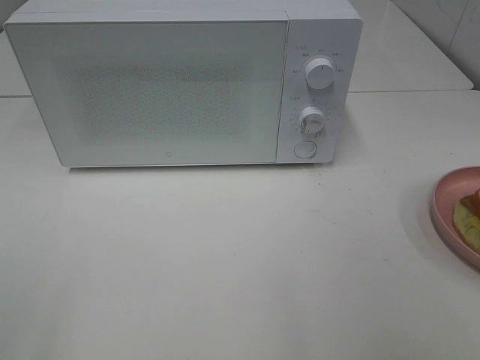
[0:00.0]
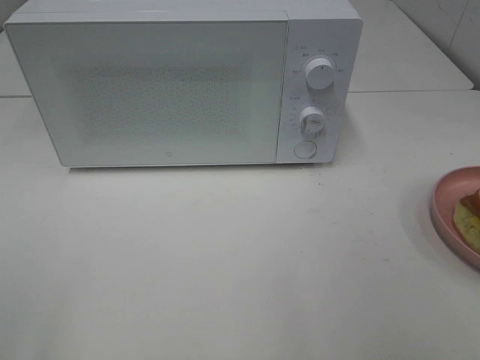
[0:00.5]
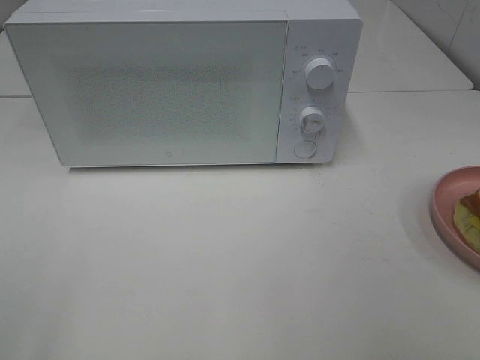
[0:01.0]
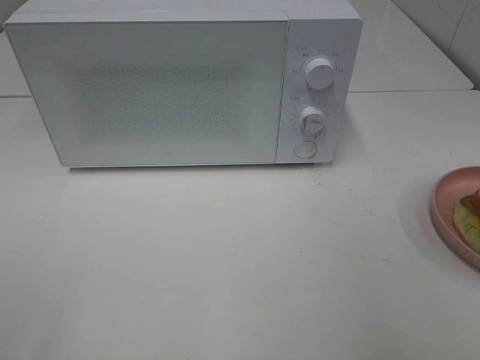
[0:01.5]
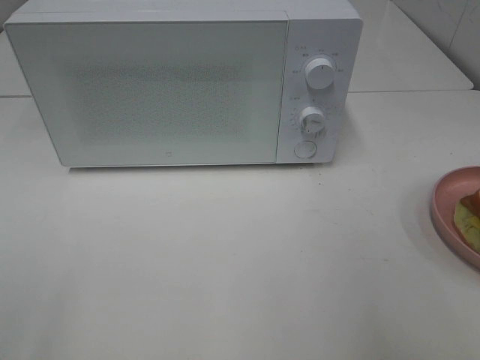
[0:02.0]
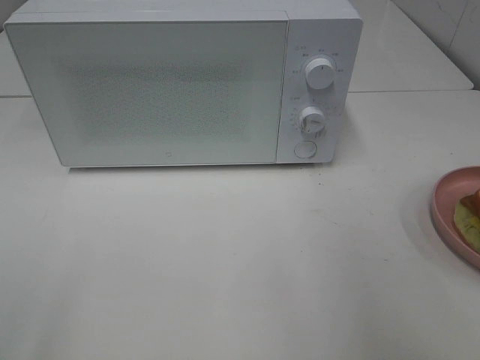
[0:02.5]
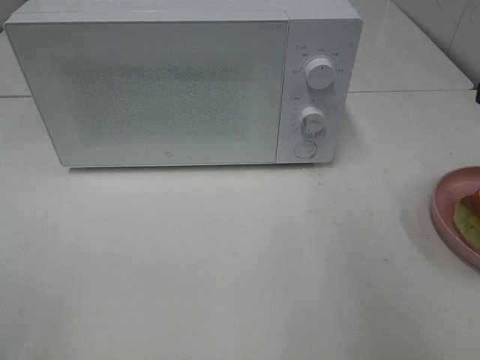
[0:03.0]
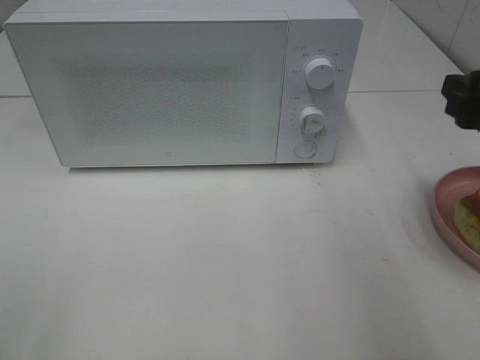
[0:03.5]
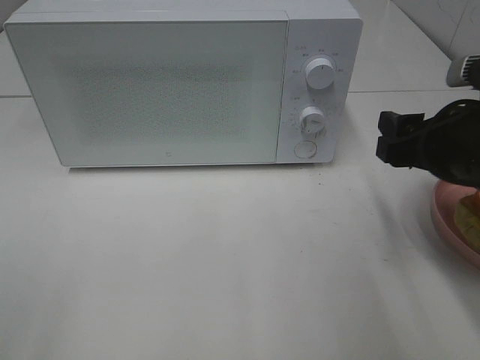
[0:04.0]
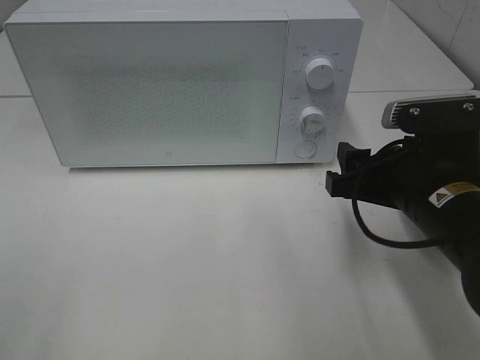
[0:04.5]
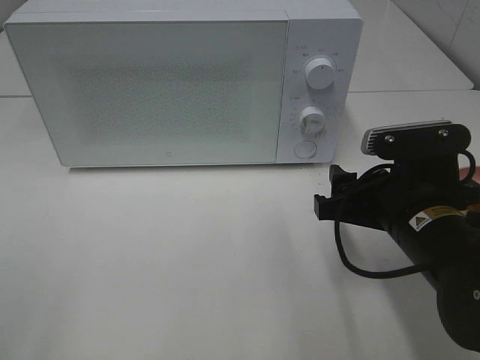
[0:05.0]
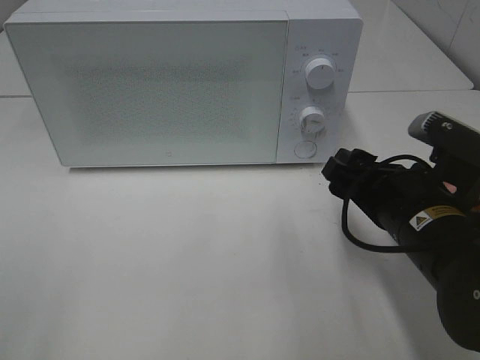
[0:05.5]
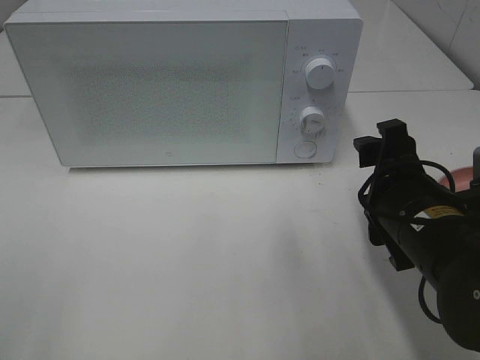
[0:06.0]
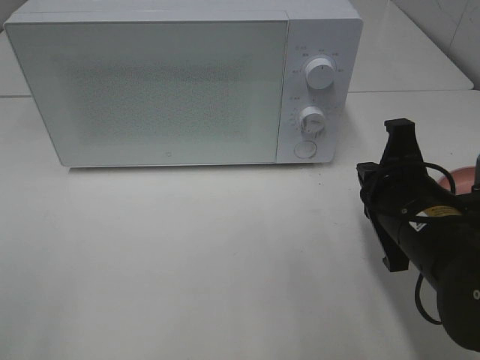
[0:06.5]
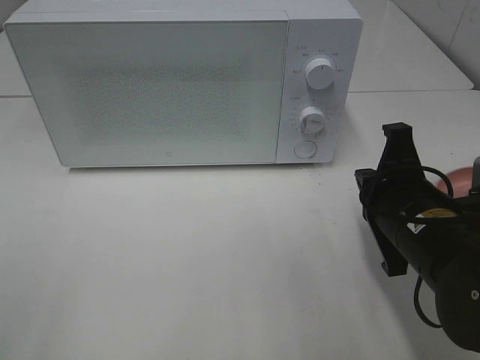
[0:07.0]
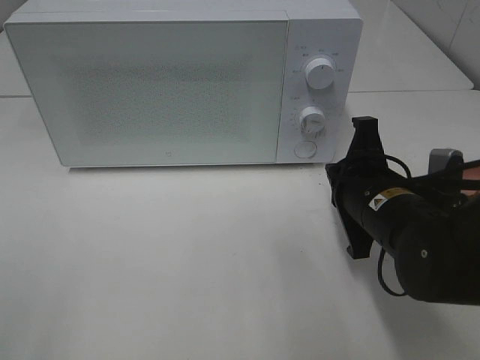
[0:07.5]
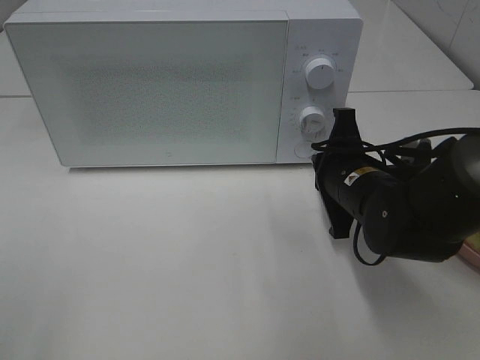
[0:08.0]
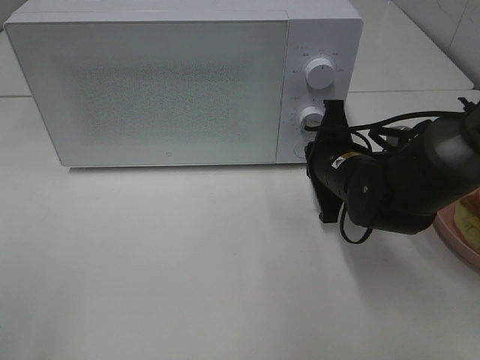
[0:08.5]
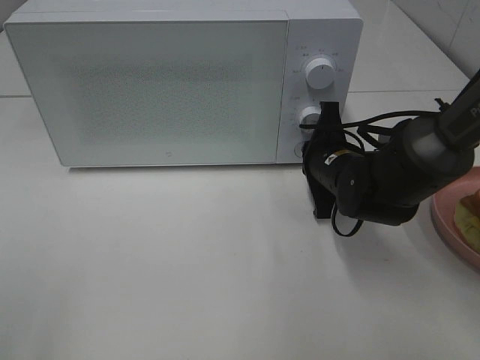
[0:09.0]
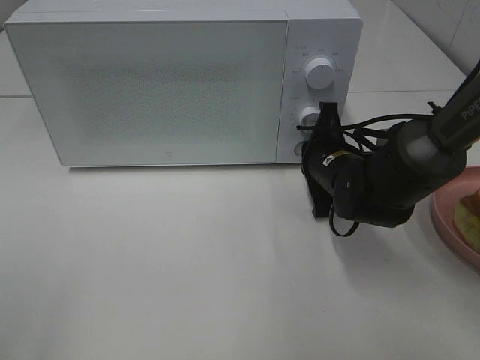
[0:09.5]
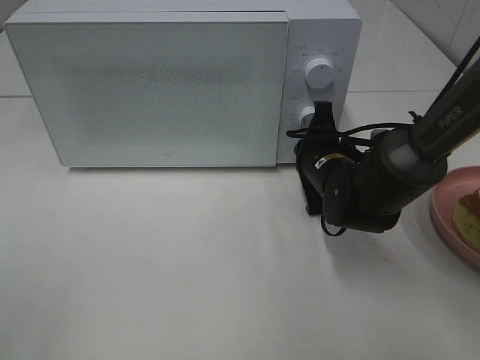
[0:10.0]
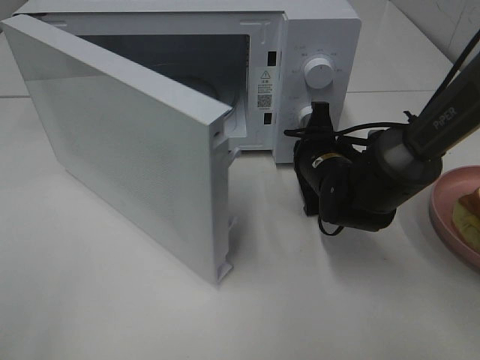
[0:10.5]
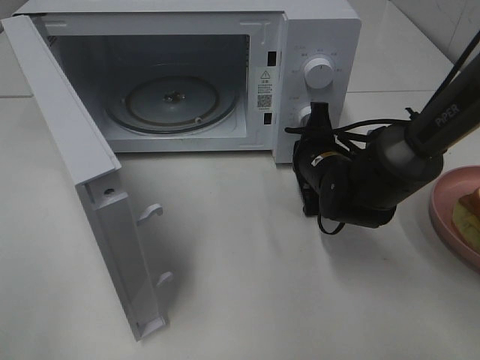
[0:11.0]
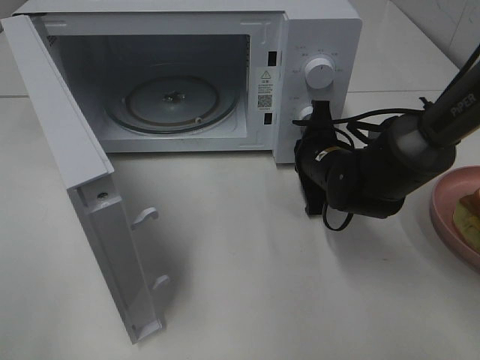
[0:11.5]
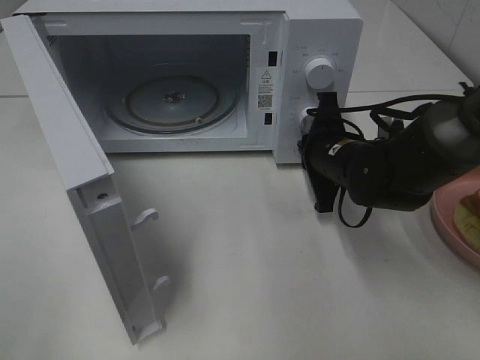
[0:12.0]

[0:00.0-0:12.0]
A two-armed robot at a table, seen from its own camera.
Task of the whole recording: Heat Sandwich.
0:02.0 to 0:04.0: The right gripper heads forward, downward and to the left, covering roughly 20 cm.
0:04.0 to 0:06.0: The right gripper heads to the left and downward, covering some 10 cm.
0:06.0 to 0:08.0: The right gripper heads forward, covering about 10 cm, and closes its fingers.
0:08.0 to 0:10.0: The right gripper shifts about 5 cm forward.

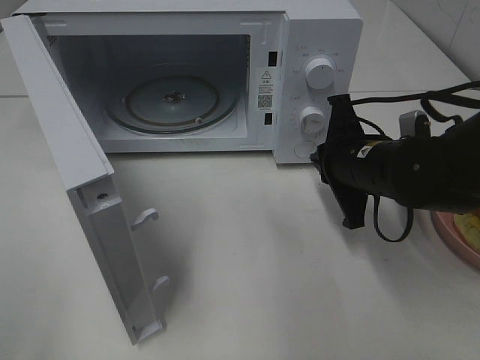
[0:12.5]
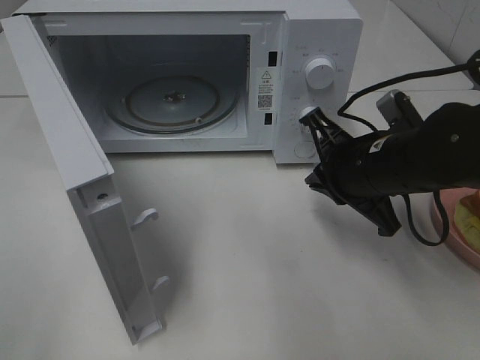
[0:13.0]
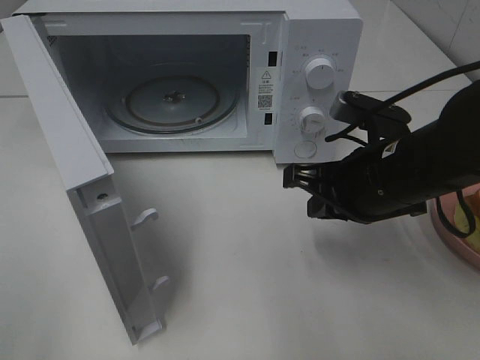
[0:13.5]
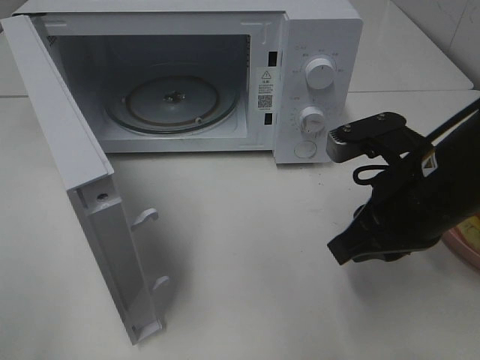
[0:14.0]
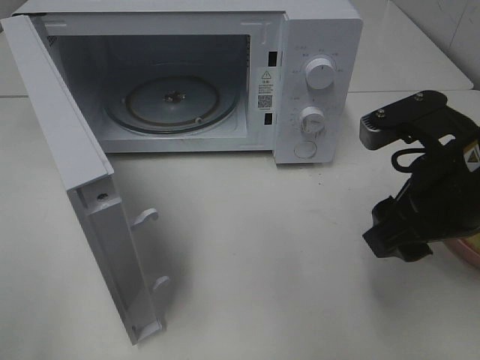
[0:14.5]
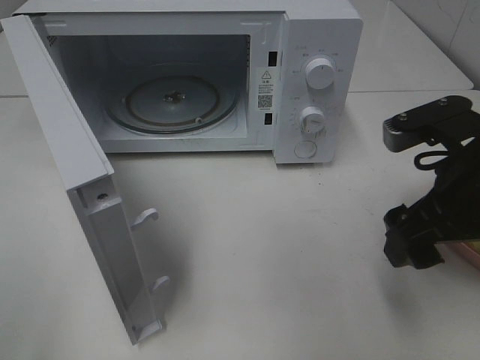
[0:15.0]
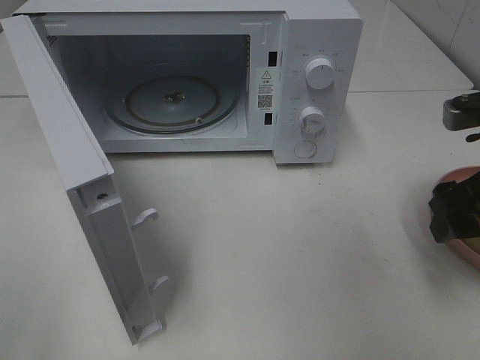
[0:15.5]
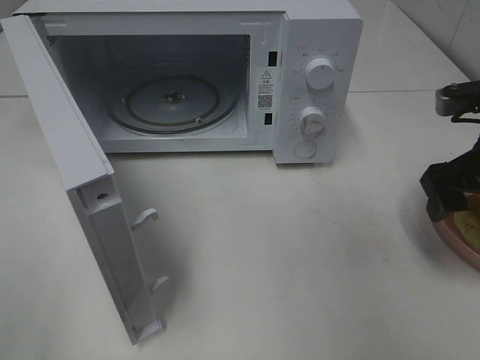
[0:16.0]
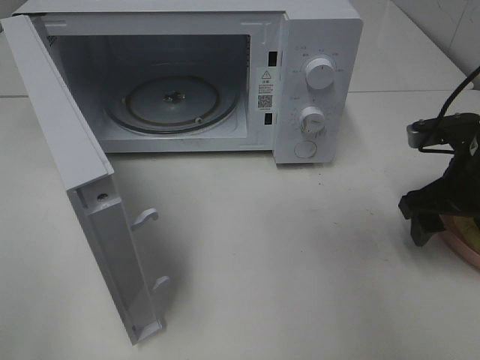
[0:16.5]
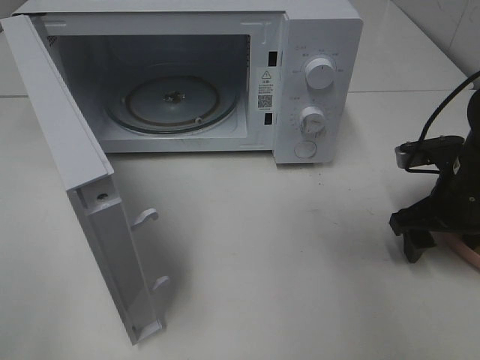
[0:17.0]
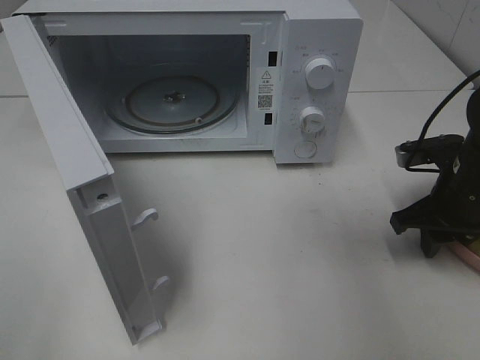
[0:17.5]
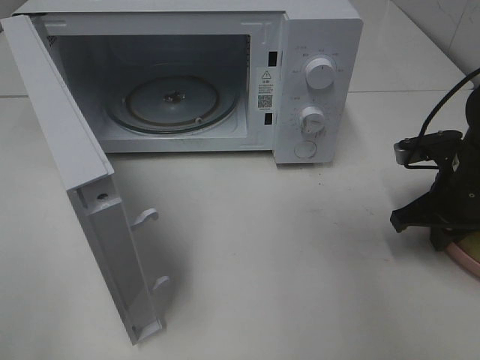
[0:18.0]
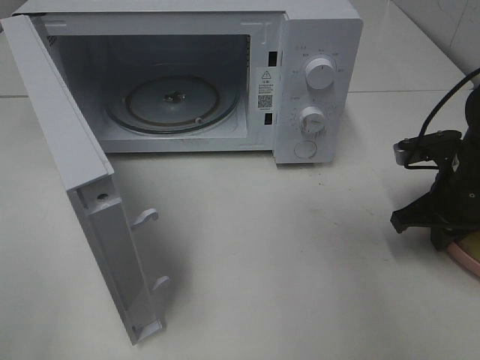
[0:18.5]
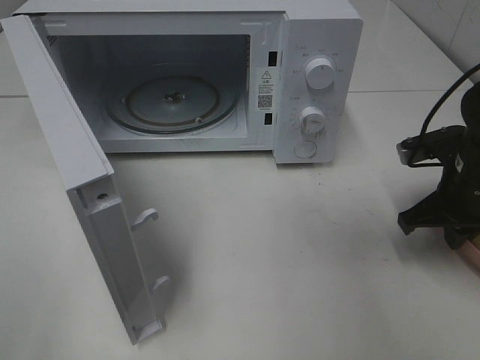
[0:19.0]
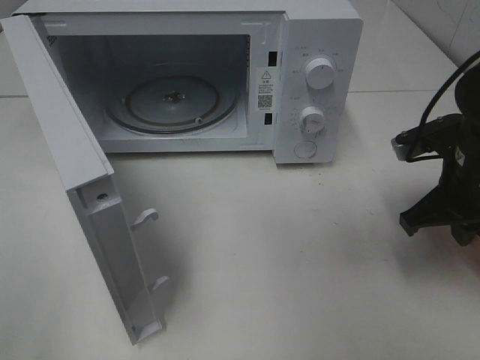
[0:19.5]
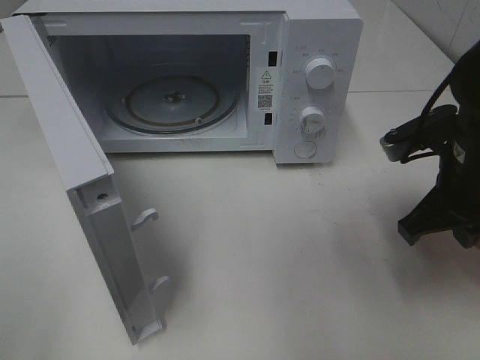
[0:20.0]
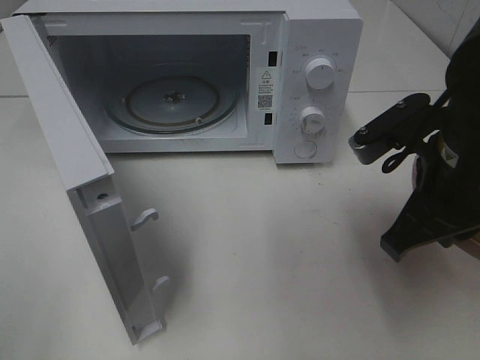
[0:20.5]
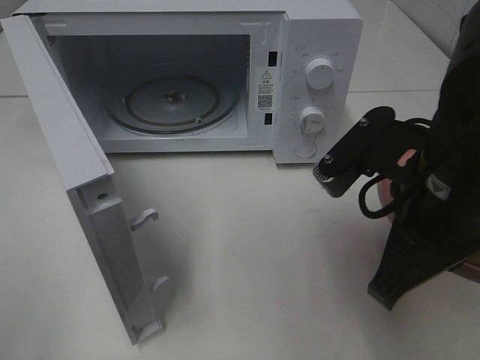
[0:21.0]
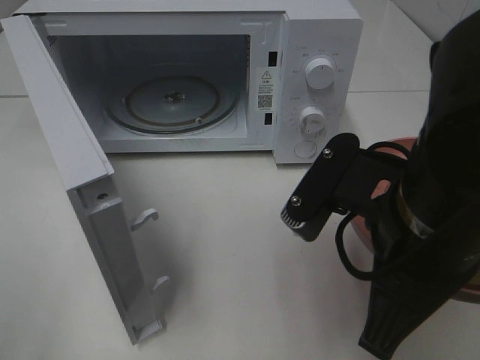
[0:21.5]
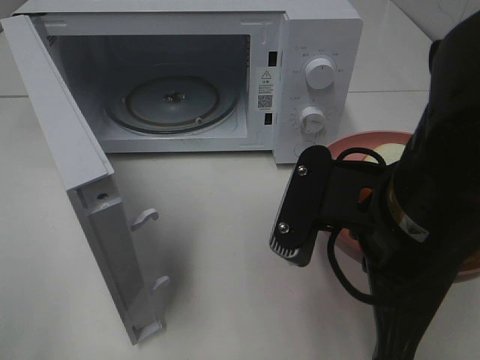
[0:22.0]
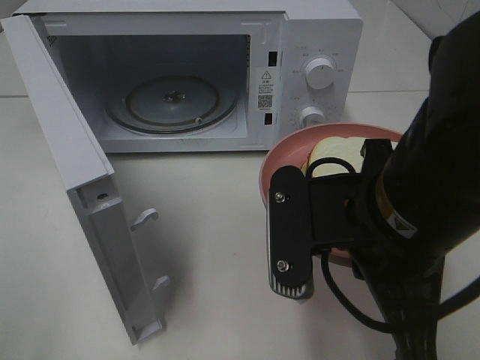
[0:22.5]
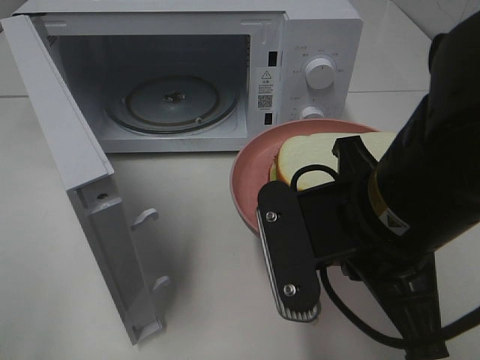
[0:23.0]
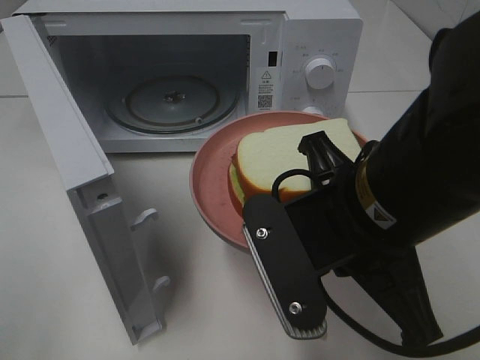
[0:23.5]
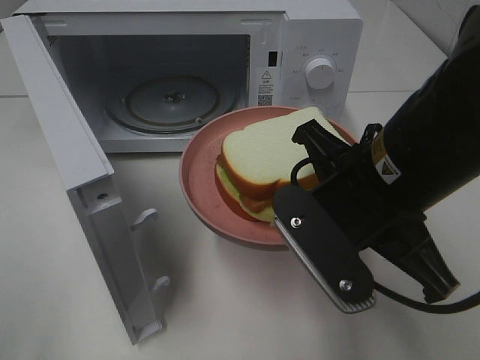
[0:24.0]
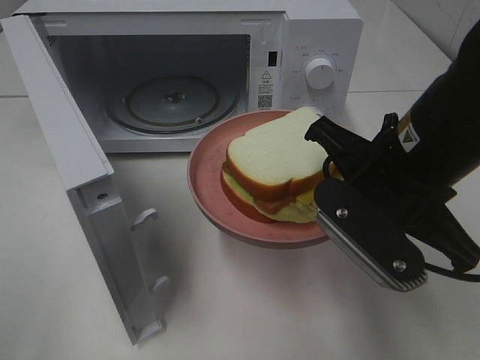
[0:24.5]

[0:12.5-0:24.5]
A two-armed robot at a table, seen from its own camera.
Task of the whole recording: Heat Sandwich.
Step, 0:13.0 to 0:17.5: Right hand: grab the plate with the sandwich.
0:12.5 to 0:14.5: The right gripper moves backward and upward, some 10 cm, and opens.
0:14.5 to 0:16.5: The right gripper goes approximately 15 cm forward, to the right and downward.
0:16.5 to 0:18.5: The right gripper closes up.
0:18.5 to 0:20.5: The right gripper is displaced upward, to the left and backward by about 15 cm.
0:20.5 to 0:22.5: The right gripper heads to the left and backward, covering approximately 10 cm.
0:22.5 to 0:24.5: The right gripper shifts some 5 cm forward.

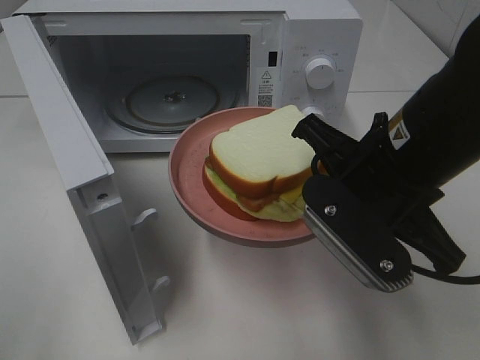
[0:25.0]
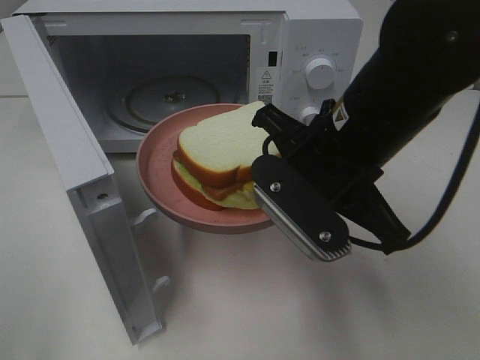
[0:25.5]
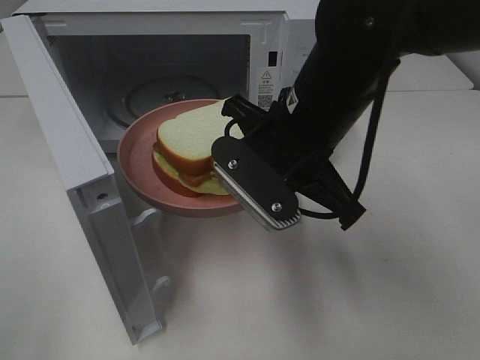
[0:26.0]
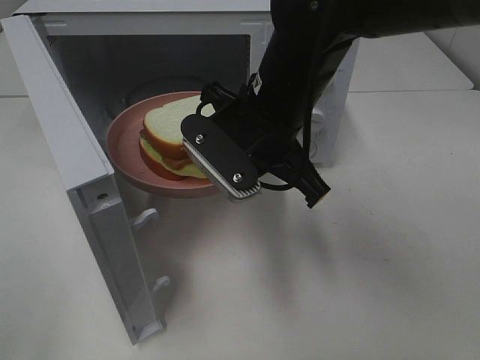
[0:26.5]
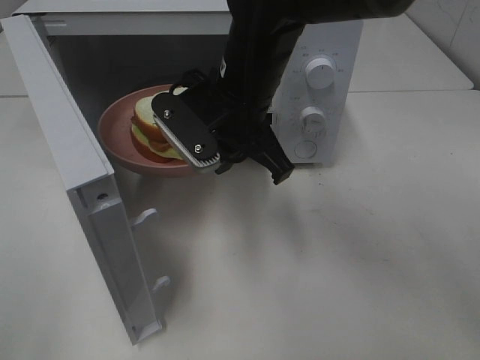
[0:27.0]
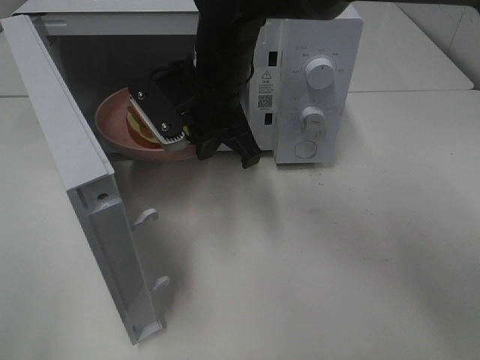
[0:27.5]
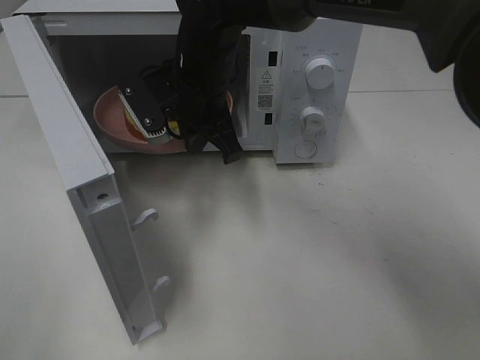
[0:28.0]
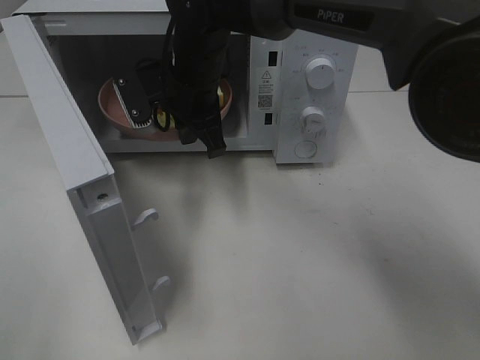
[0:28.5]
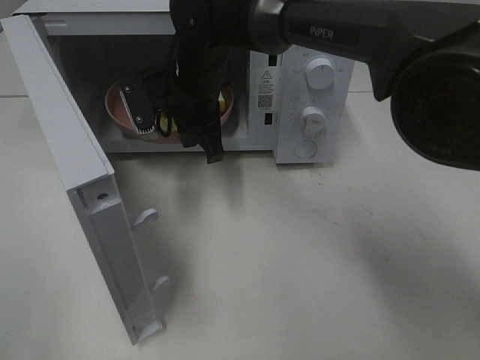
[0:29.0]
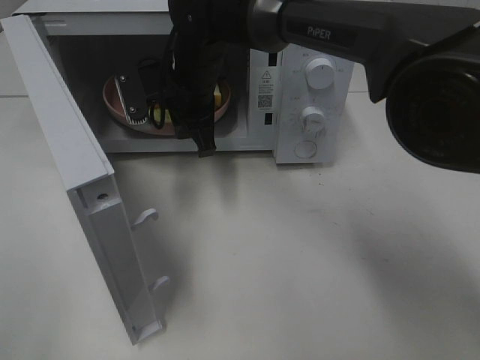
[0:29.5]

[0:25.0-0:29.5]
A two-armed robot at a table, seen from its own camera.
Task of the whole recording: Heat Sandwich.
0:25.0 to 0:27.0: The right gripper goes some 15 cm forward and to the left.
0:27.0 to 0:29.5: The right gripper goes some 10 cm forward and to the left.
